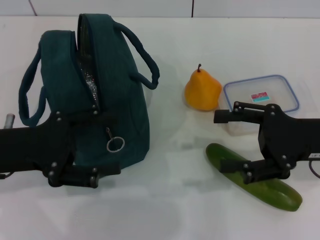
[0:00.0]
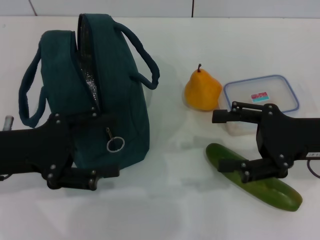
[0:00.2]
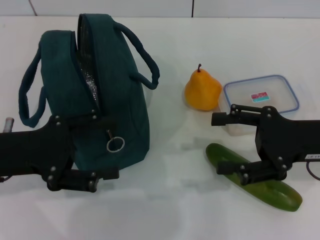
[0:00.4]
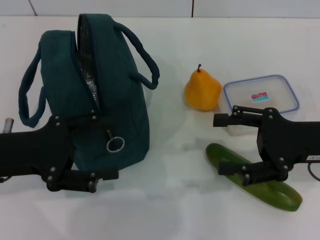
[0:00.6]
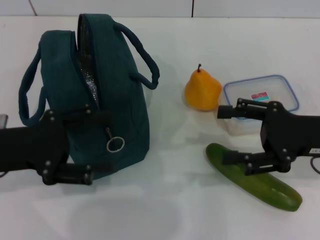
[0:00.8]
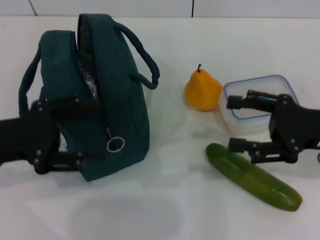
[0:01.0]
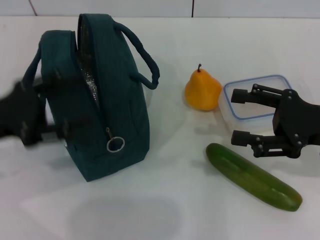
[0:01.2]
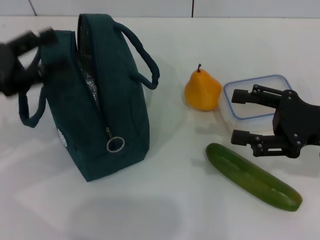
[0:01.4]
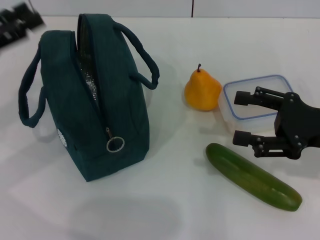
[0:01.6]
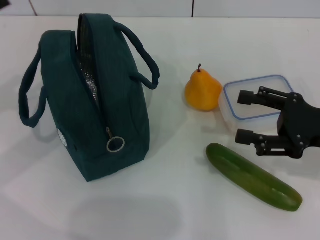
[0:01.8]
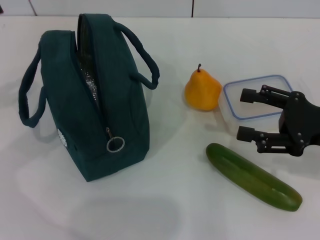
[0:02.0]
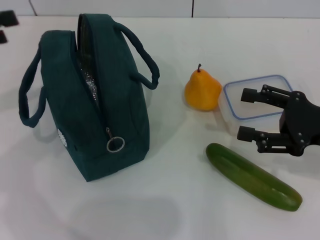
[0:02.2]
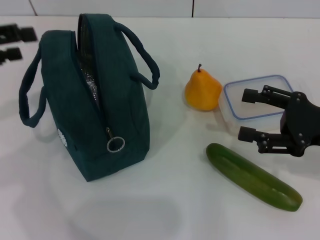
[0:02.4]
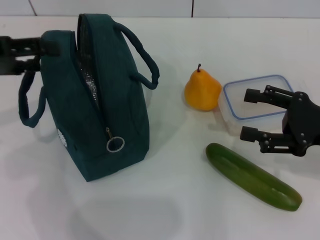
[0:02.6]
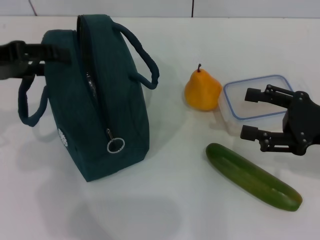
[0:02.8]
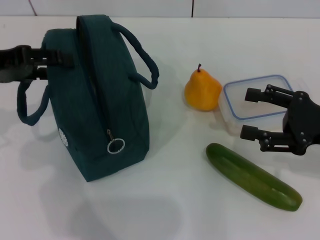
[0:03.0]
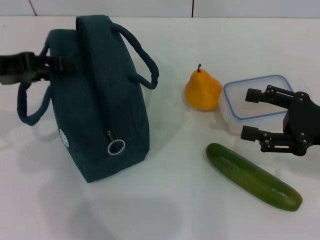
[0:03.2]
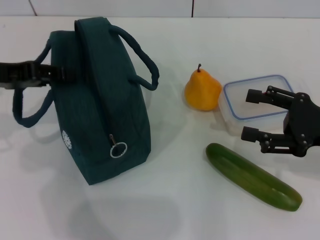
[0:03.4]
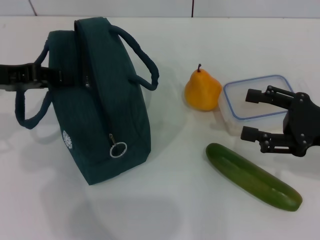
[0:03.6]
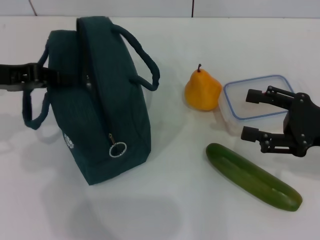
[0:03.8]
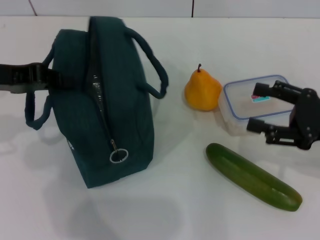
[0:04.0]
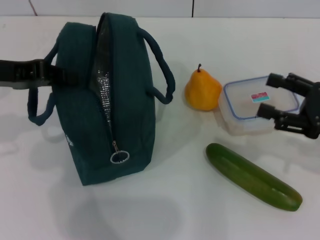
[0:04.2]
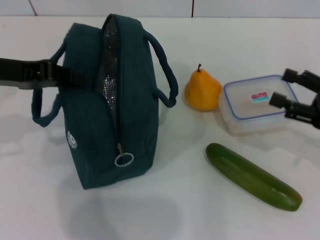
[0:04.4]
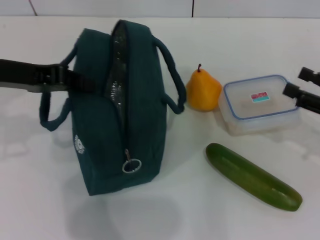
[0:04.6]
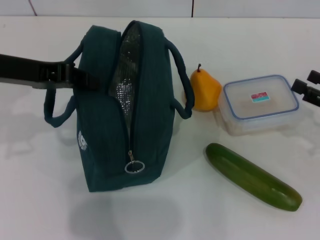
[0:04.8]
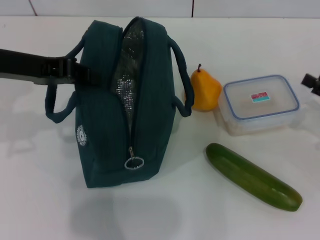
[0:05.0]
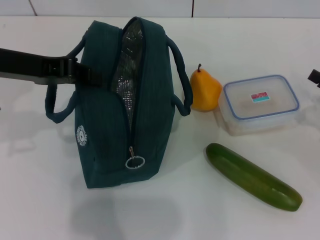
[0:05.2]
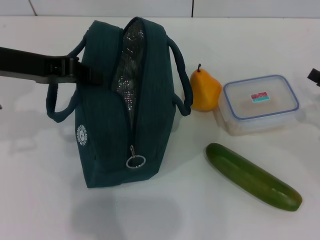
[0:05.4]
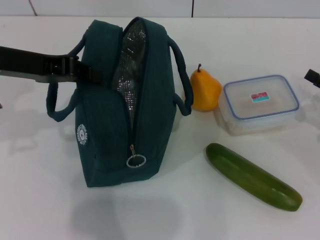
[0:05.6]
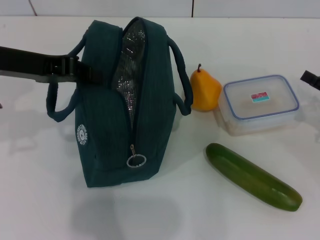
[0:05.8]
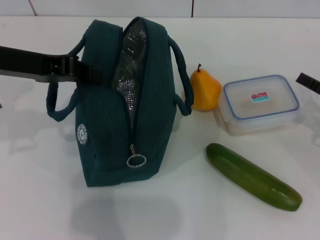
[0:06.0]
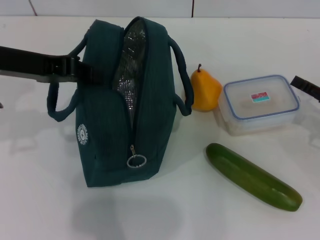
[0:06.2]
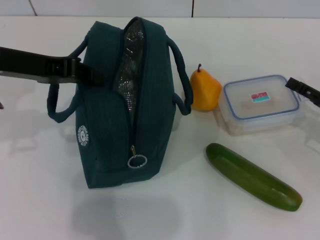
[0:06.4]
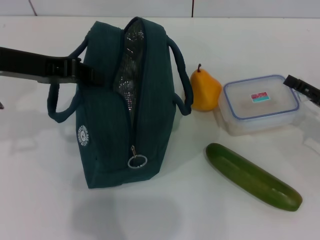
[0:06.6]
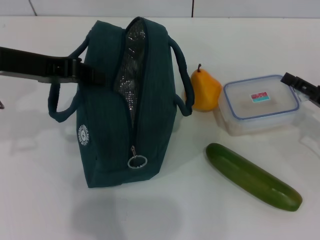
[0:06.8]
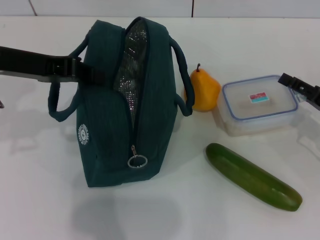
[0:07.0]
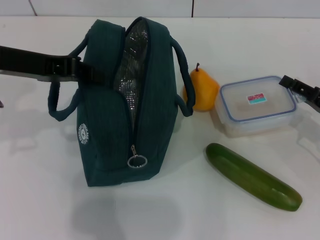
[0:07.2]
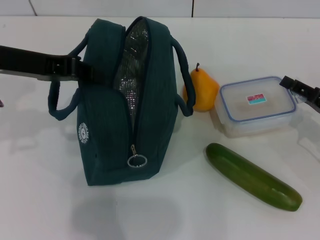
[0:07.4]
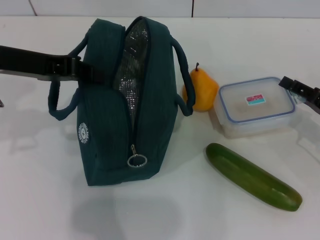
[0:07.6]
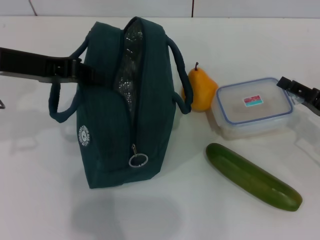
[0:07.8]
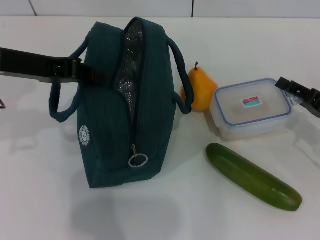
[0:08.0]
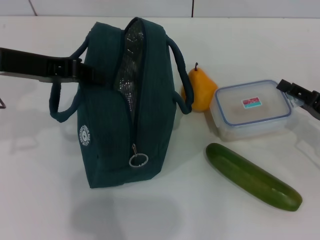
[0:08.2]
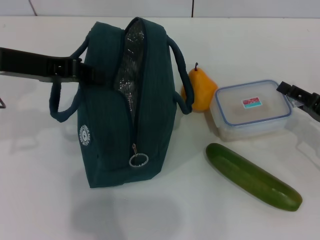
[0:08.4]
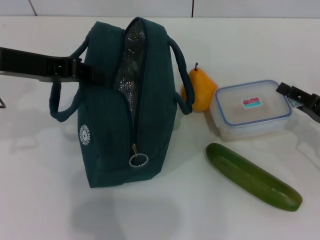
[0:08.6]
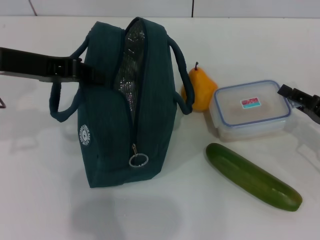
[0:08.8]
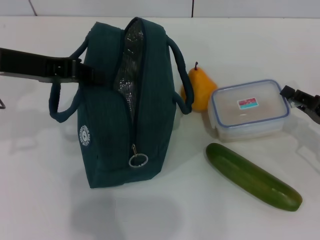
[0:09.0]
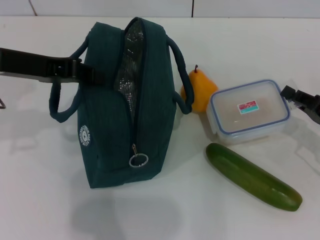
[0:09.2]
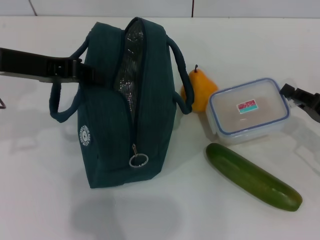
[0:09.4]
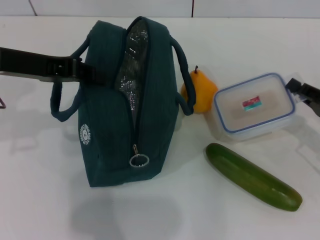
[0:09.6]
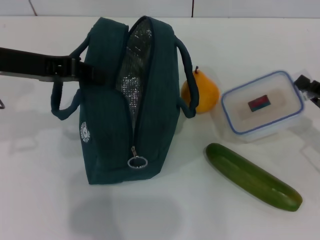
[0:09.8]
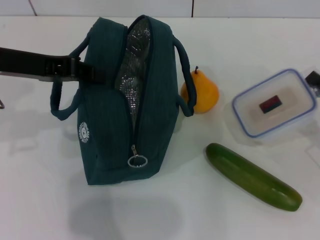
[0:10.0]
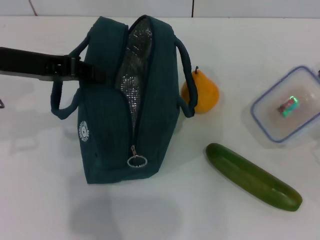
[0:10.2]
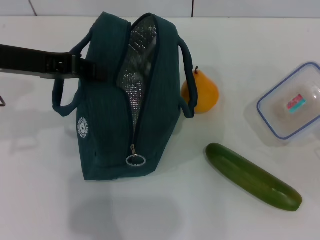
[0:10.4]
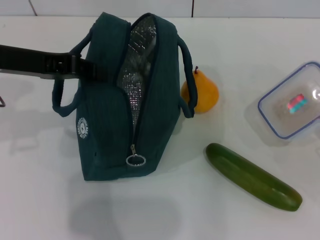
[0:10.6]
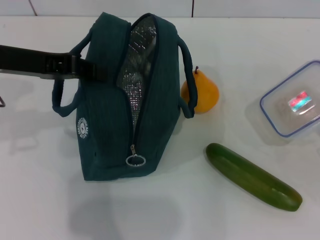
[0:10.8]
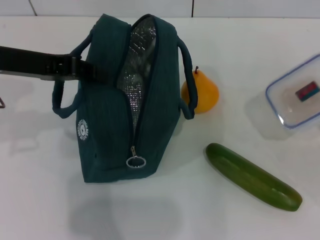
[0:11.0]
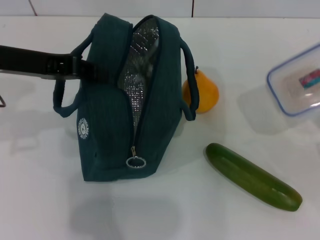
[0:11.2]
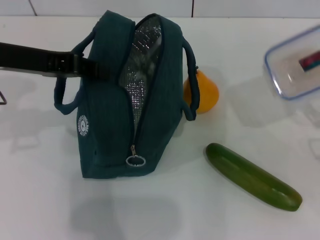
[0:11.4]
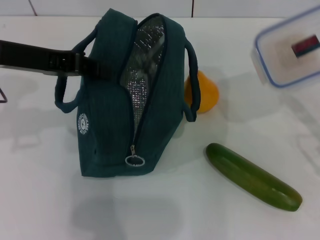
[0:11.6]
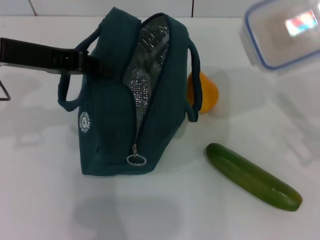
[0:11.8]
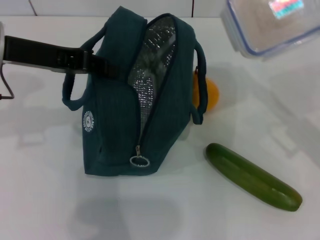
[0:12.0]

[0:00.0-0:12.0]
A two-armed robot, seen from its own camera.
Step, 0:00.0 to 0:04.0: Hold the lunch bag with your left hand.
Step, 0:04.2 to 0:10.6: Pick up the lunch box with your right hand.
0:00.0 to 0:01.6: The left gripper goes approximately 5 cm to the left.
0:01.6 to 0:03.0: The left gripper ends up approximately 5 cm from where it was.
0:03.0 to 0:04.4: The left gripper closes its fingers.
0:04.4 to 0:06.0: The right gripper changes place by about 5 cm.
0:06.0 to 0:09.0: The grippers move only a little.
0:09.0 to 0:10.4: The grippers make only small movements.
0:10.4 to 0:12.0: The right gripper heads to the left and upward, covering approximately 10 cm.

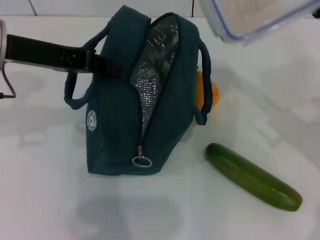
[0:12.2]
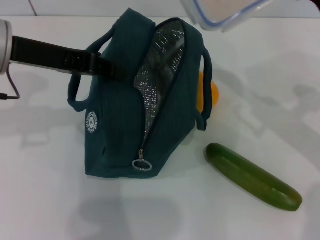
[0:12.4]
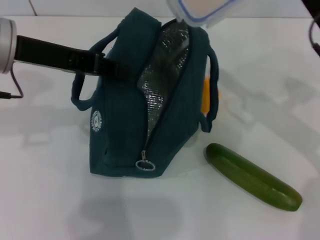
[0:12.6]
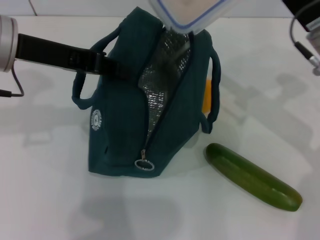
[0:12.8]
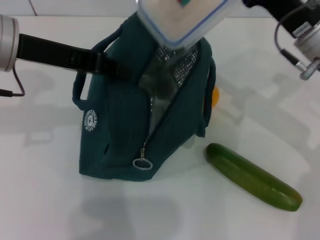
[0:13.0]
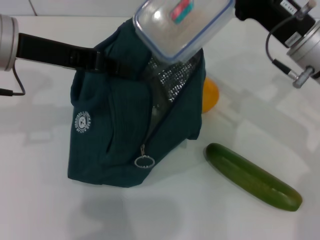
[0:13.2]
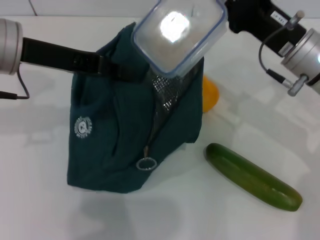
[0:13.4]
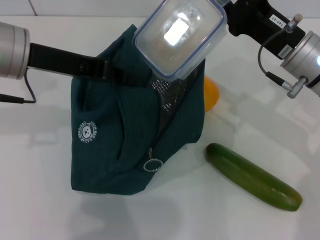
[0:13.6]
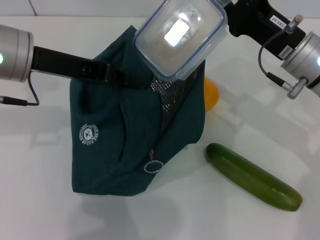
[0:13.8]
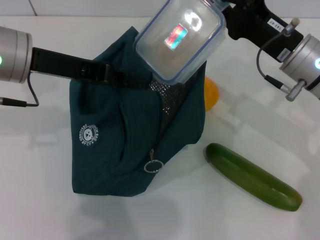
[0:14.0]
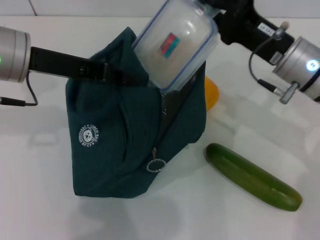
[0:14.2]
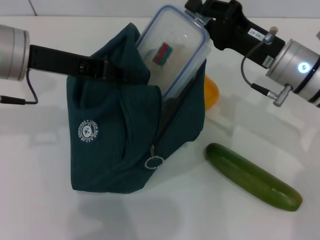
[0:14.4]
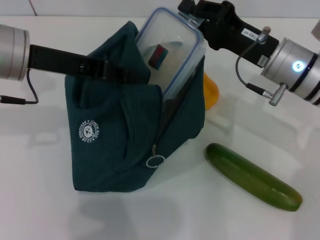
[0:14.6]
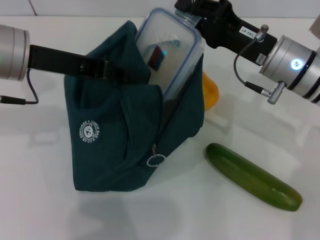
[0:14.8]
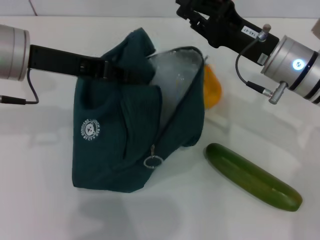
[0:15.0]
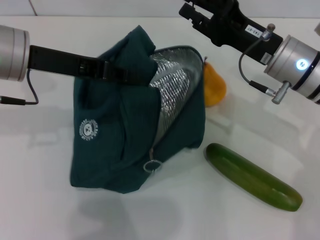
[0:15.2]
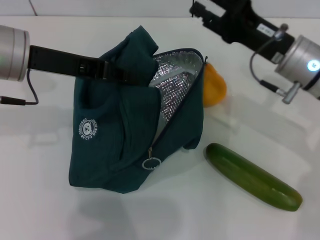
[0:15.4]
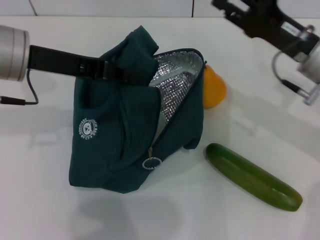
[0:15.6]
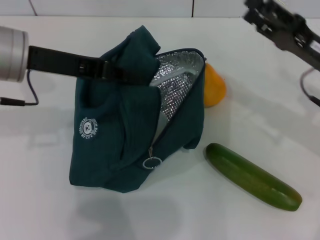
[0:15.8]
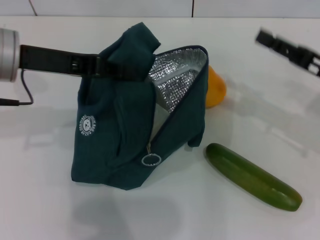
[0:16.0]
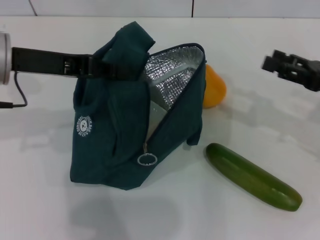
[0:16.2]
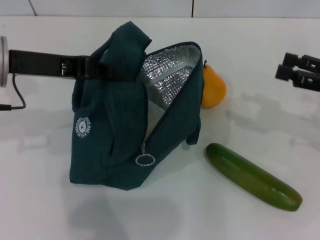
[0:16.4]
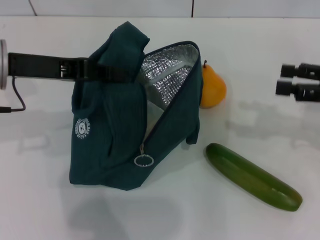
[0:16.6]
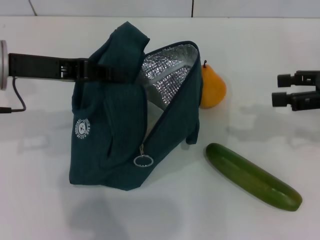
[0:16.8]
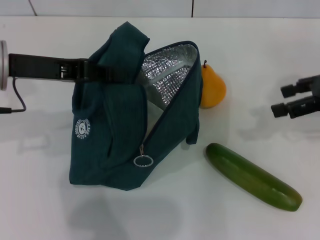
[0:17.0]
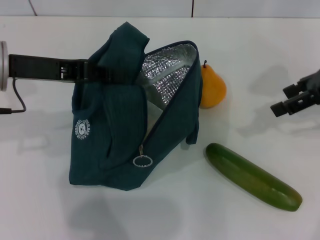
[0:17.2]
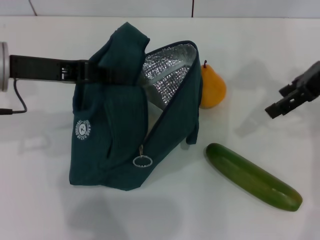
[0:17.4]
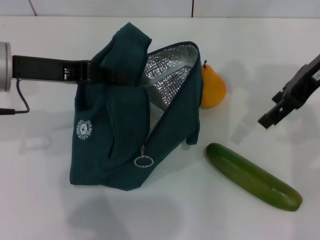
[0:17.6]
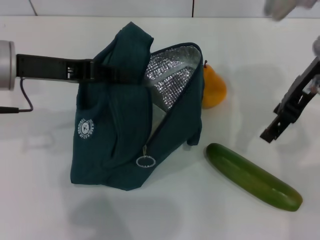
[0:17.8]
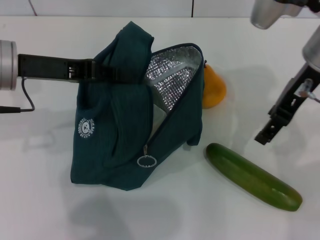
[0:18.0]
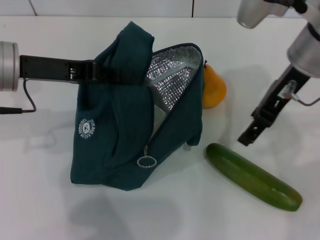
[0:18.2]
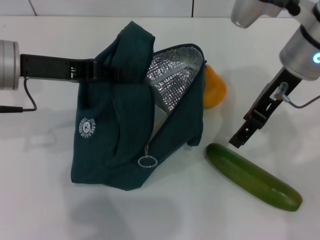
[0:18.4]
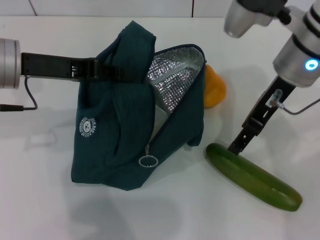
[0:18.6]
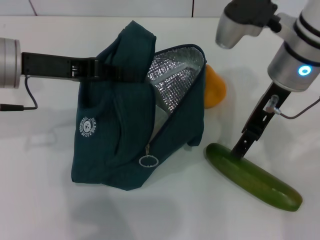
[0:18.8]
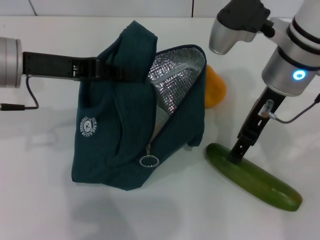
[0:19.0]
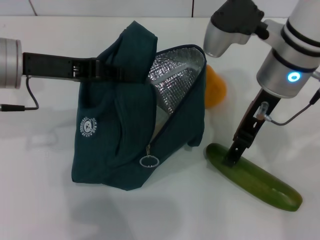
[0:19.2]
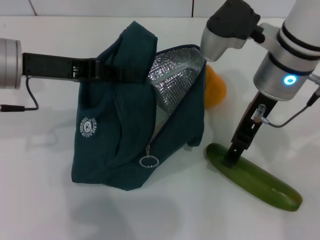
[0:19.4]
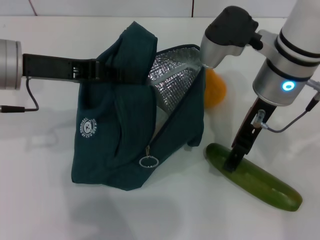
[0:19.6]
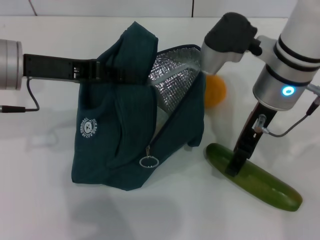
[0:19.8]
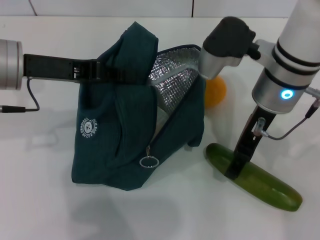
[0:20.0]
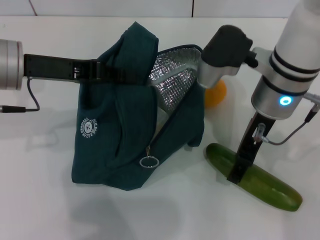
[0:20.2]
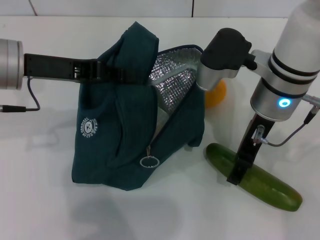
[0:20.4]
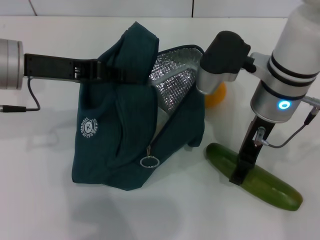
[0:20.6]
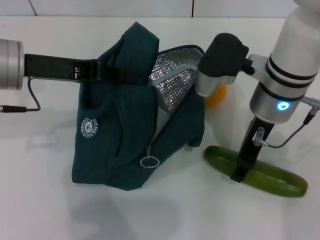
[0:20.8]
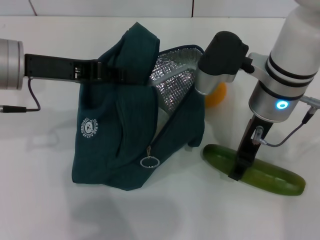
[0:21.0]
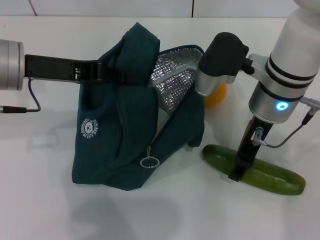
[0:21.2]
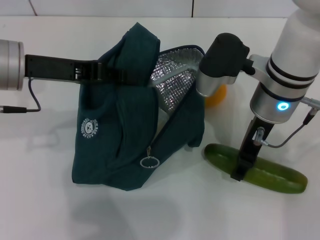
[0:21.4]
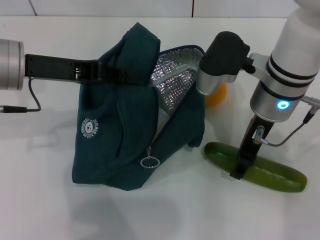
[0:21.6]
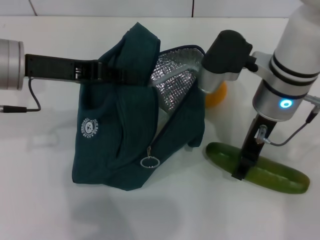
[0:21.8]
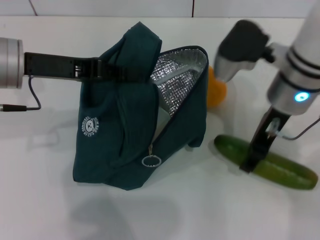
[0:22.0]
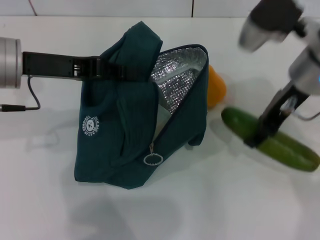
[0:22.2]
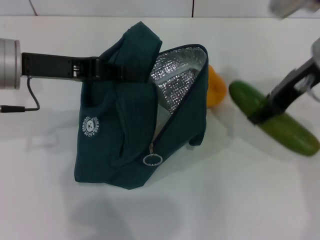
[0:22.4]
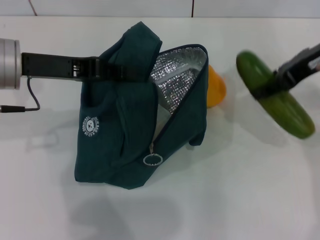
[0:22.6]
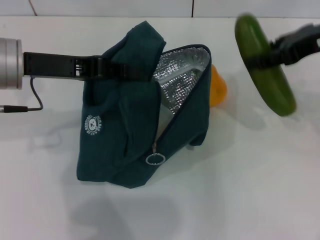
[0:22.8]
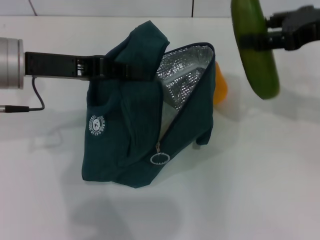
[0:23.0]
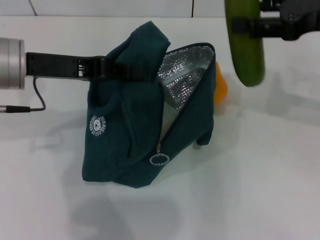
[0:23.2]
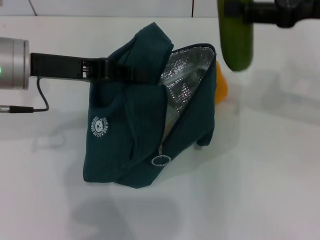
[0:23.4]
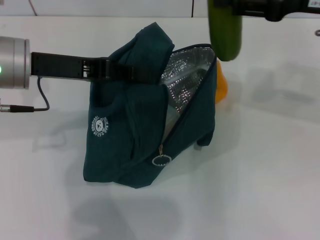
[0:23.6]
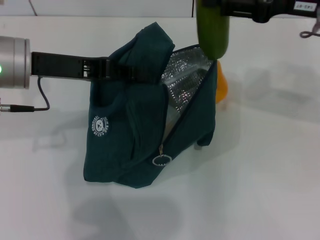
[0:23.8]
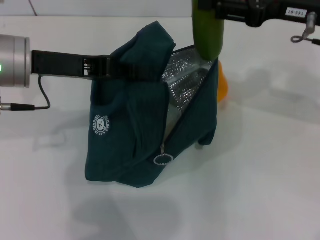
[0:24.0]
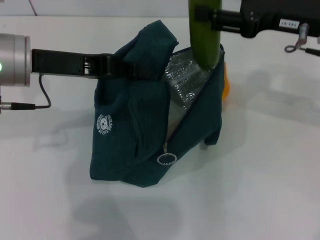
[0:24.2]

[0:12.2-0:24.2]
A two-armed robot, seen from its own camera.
Step, 0:12.2 to 0:15.8: Place the lunch box into the lunch bag with your right hand.
Step, 0:16.0 to 0:21.4: Pick up the cucumber with your right hand.
0:12.2 to 0:13.8: The right gripper moves to the left, approximately 5 cm.
0:13.8 to 0:15.2: There are only small adjustments of the grippers.
0:15.2 to 0:16.6: The right gripper shifts some 15 cm to the right, and opens its fingers.
0:16.6 to 0:18.2: The right gripper is displaced to the left by approximately 15 cm.
0:18.2 to 0:19.8: The right gripper moves roughly 5 cm.
0:19.8 to 0:21.2: The grippers make only small movements.
0:21.2 to 0:22.6: The right gripper goes some 15 cm to the right and upward.
